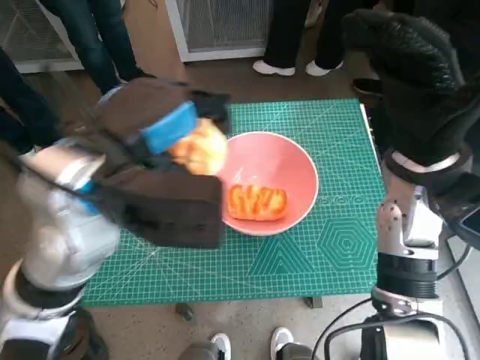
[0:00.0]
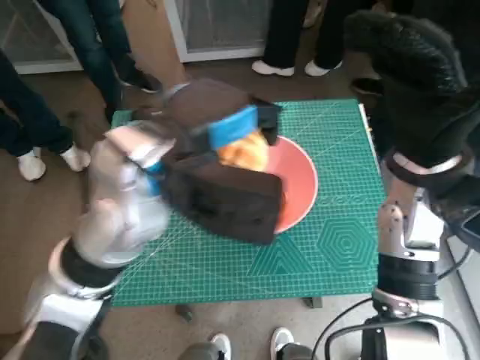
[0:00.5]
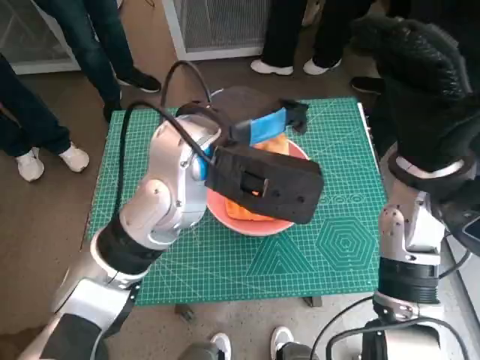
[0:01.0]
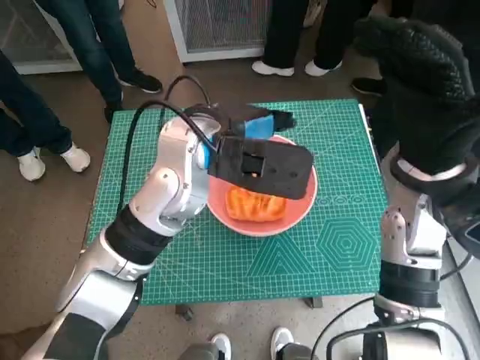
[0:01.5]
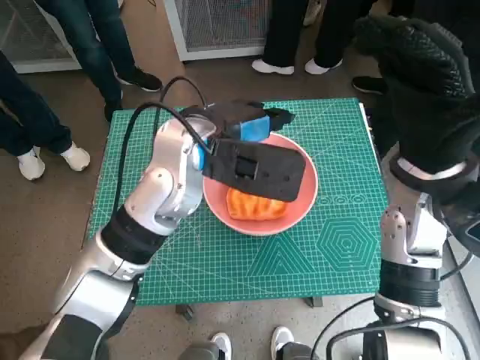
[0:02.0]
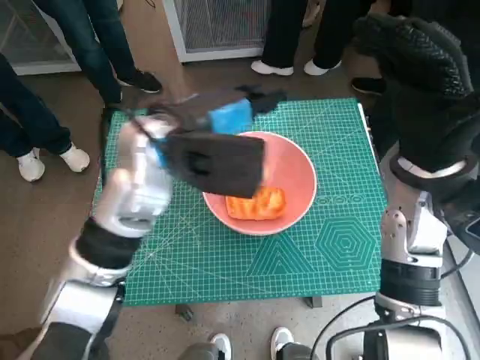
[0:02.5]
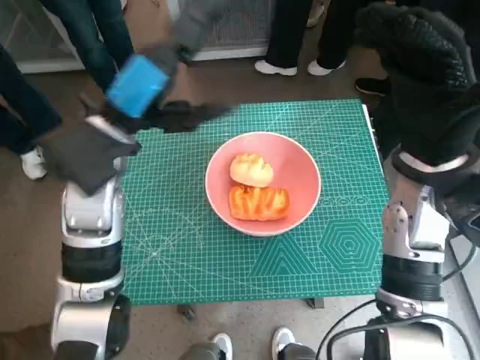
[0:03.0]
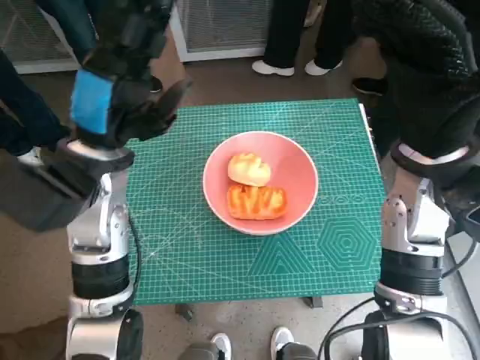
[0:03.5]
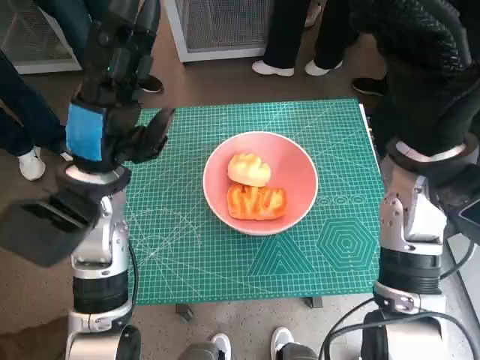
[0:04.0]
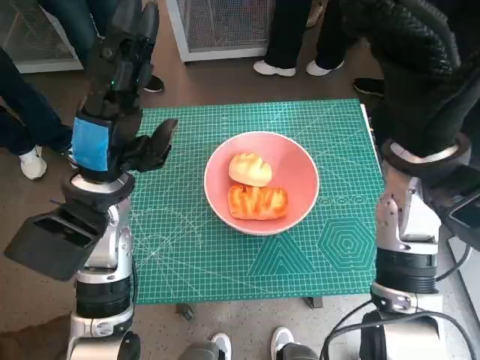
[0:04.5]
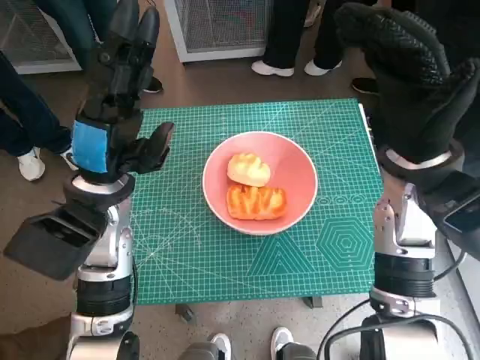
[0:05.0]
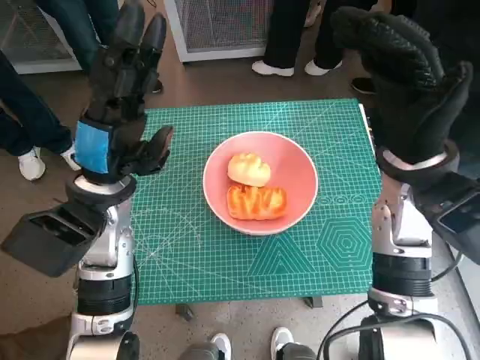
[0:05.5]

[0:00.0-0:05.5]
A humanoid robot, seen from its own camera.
Task of the whole recording: Push the bowl into the center of the table and put the bread into the bowl.
0:00.0 to 0:02.0: The left hand travels forward and to the right by some 10 cm.
0:02.0 to 0:03.5: The left hand heads to the left, covering about 10 cm.
